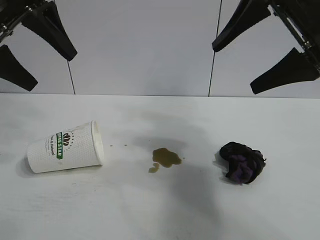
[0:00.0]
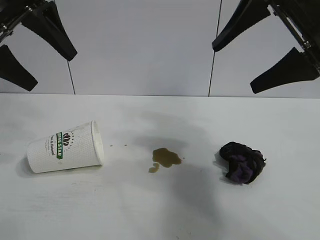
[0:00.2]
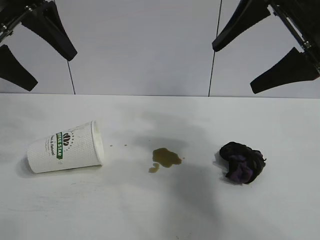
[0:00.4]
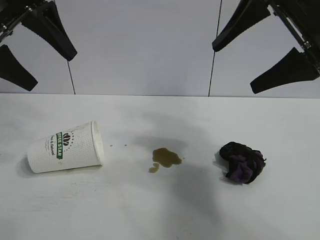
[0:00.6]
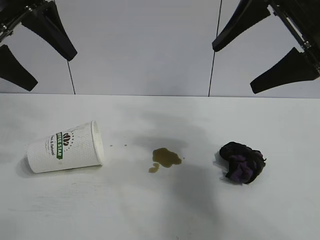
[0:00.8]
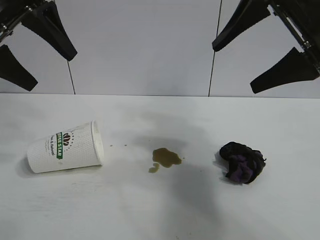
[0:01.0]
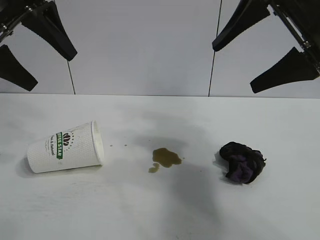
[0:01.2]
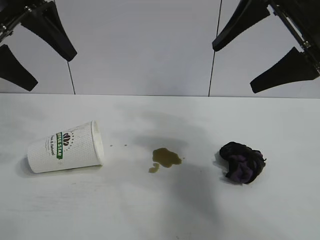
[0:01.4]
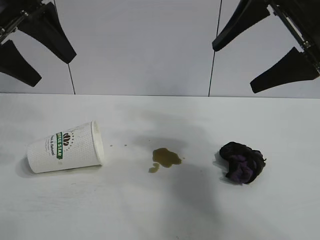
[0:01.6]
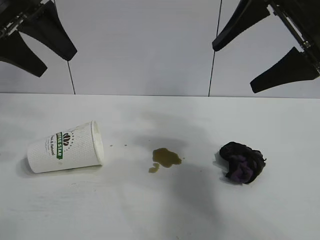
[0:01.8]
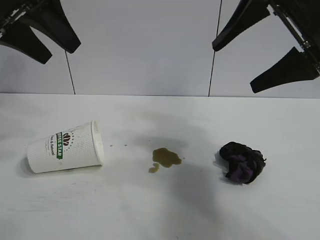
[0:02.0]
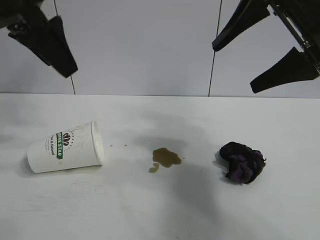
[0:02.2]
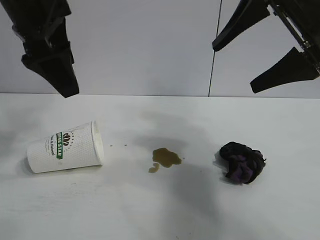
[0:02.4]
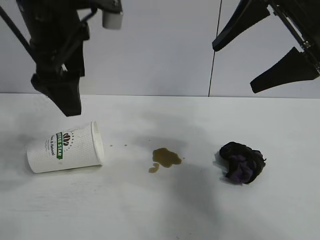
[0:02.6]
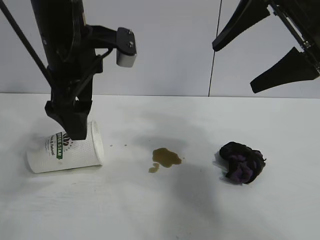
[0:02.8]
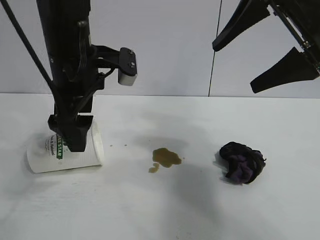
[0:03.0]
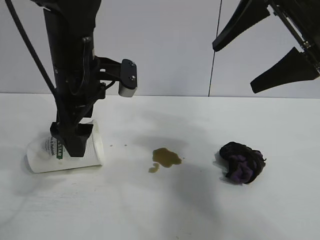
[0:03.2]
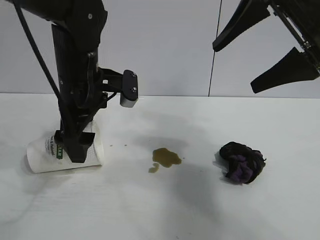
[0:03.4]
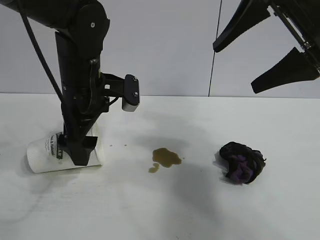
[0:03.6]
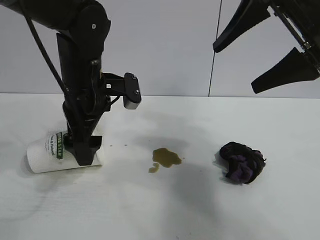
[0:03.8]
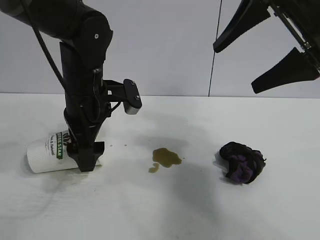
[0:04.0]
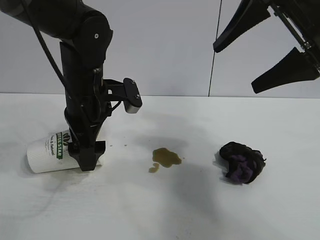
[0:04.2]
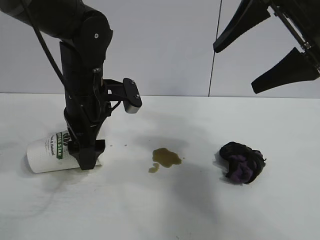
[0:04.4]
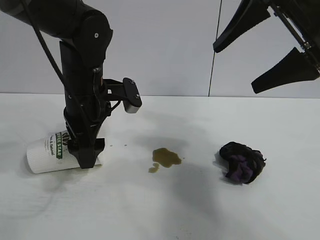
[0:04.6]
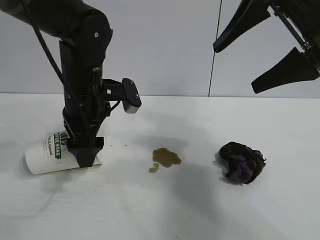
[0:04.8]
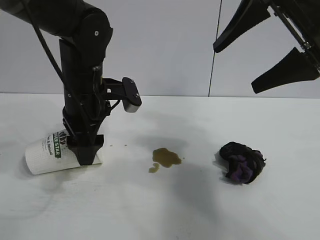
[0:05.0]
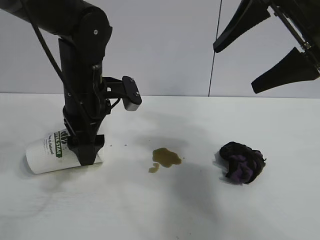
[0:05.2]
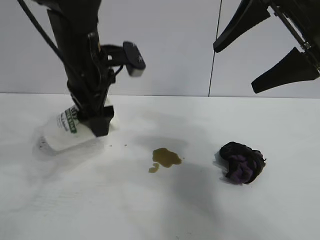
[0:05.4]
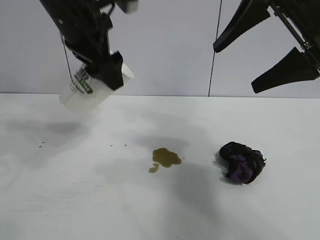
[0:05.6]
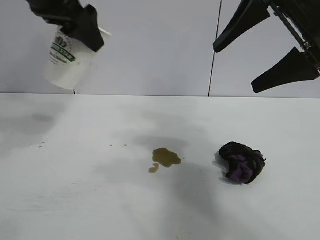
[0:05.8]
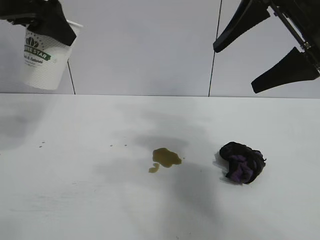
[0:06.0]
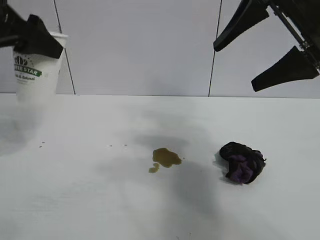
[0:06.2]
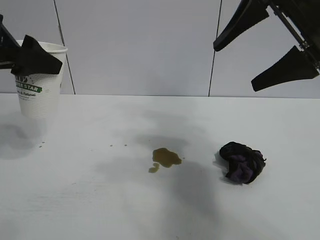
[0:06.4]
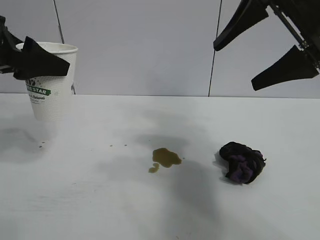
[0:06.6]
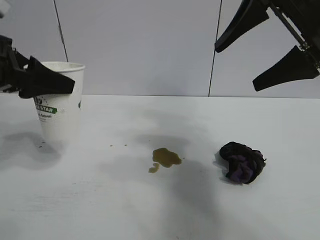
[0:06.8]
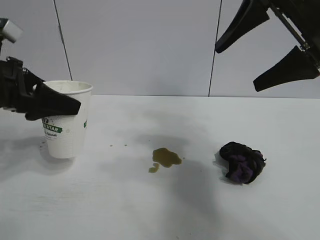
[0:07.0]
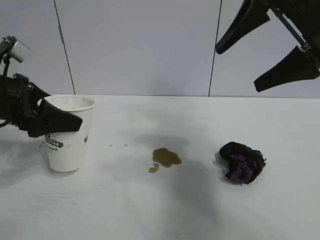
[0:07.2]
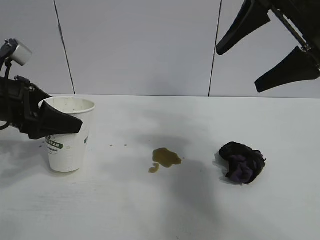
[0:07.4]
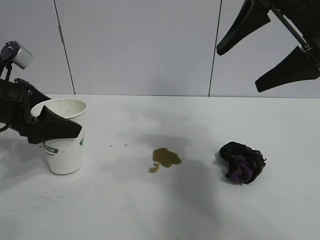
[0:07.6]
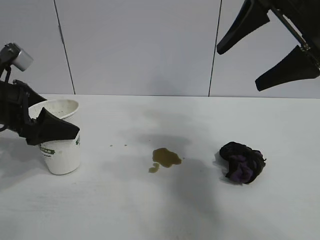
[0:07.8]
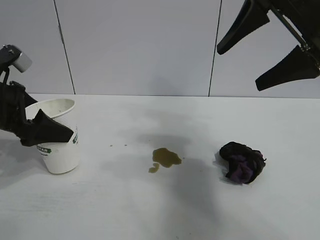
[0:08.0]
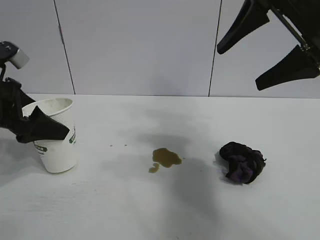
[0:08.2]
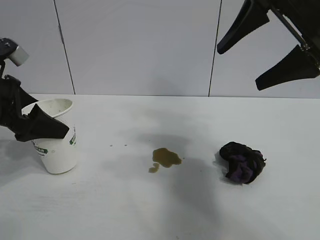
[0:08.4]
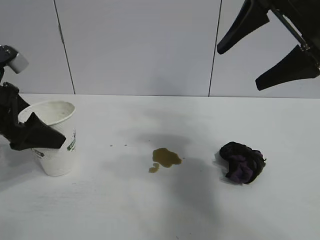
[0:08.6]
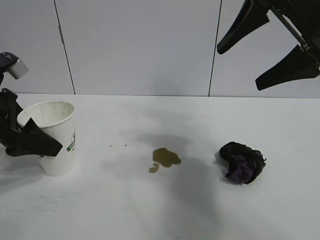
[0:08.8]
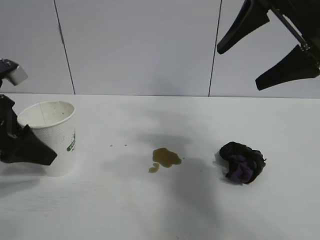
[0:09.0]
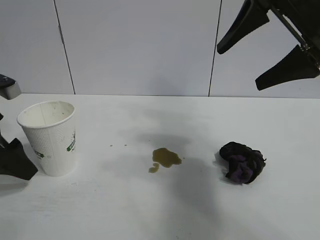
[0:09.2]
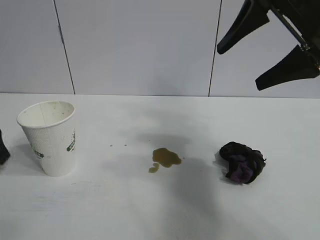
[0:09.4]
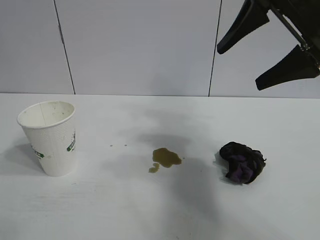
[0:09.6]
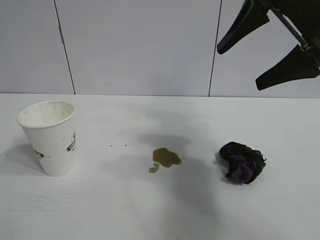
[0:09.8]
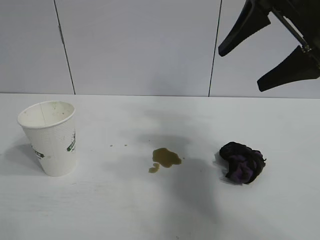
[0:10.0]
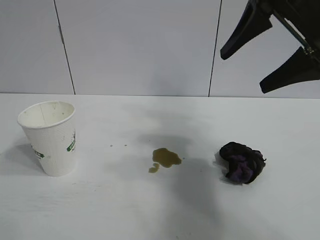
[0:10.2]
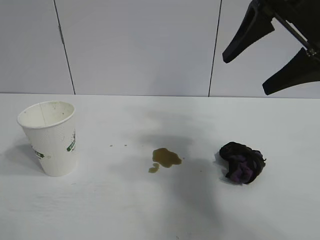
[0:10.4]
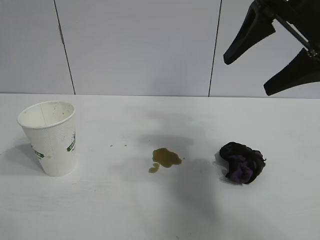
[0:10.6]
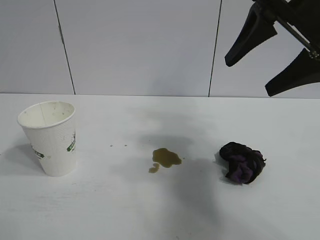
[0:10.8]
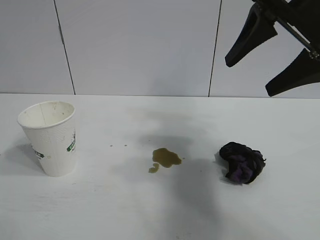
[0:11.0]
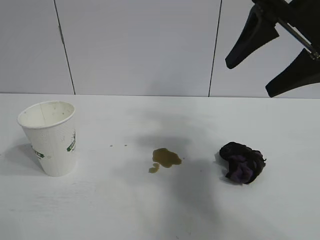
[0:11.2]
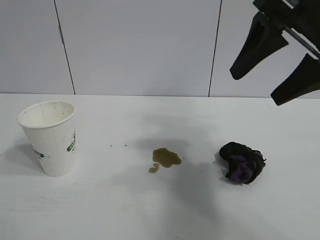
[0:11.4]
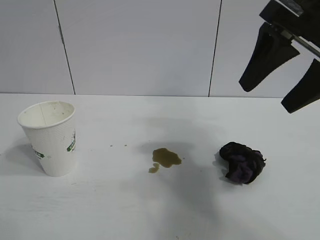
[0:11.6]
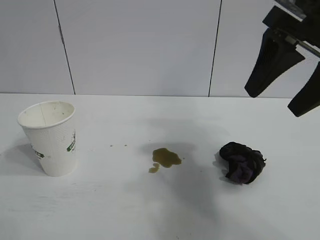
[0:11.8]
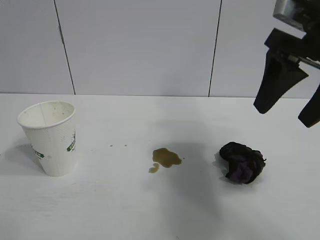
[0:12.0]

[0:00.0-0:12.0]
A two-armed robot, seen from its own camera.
Task of the whole recording: the left gripper pick up the fallen cup and place it upright, the right gripper grasp the black rag and wipe the stain on the table, the right gripper put the black rag back in its original position.
Step, 0:01.4 to 0:05.0: Grasp the paper cup with left gripper.
Step, 0:05.2 to 0:08.6: Stand the paper cup upright with left gripper.

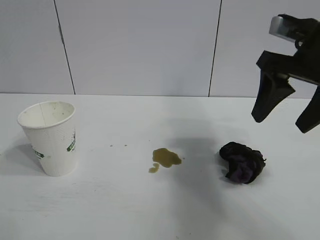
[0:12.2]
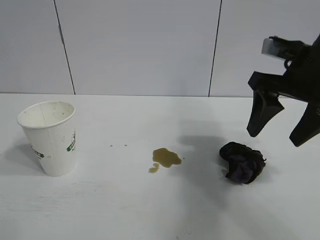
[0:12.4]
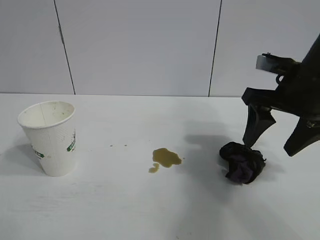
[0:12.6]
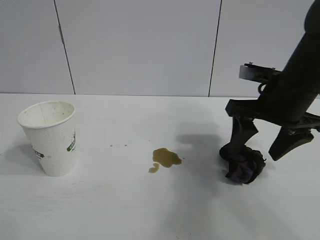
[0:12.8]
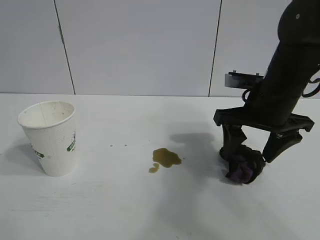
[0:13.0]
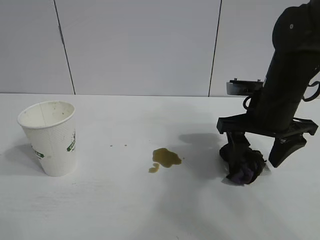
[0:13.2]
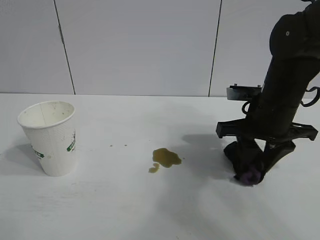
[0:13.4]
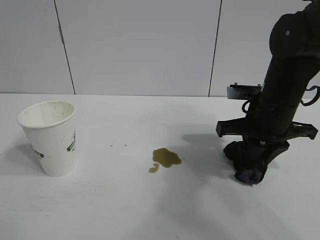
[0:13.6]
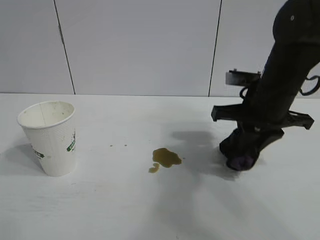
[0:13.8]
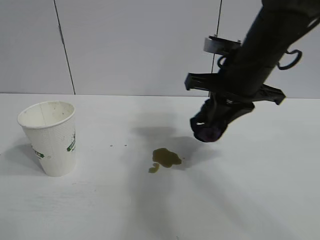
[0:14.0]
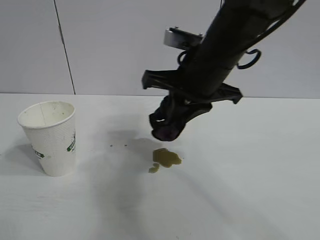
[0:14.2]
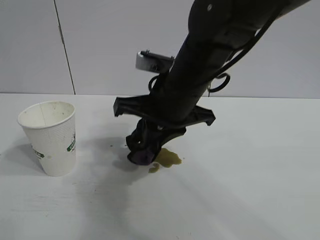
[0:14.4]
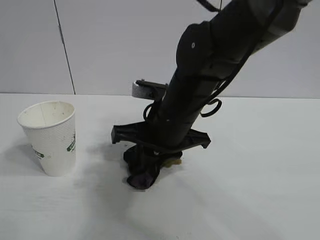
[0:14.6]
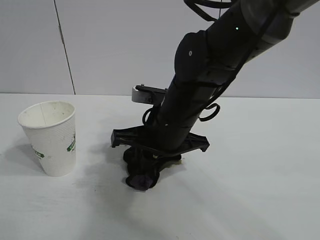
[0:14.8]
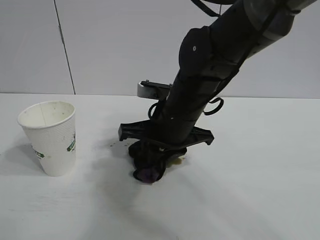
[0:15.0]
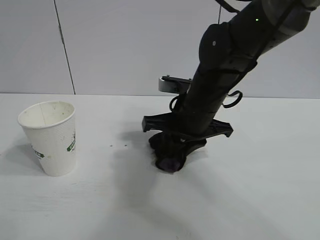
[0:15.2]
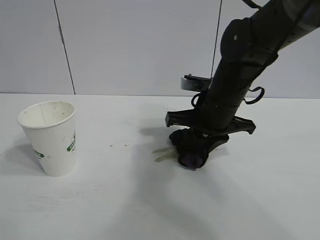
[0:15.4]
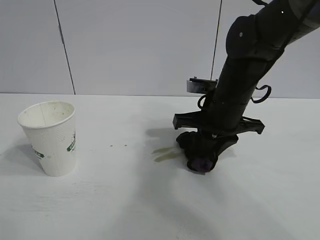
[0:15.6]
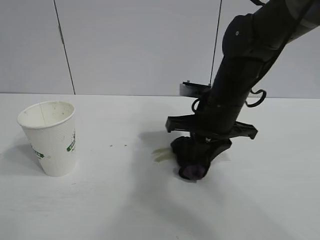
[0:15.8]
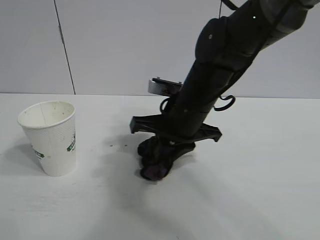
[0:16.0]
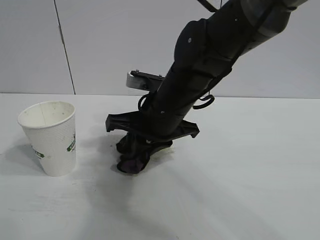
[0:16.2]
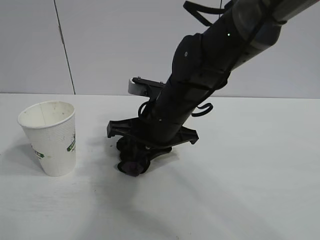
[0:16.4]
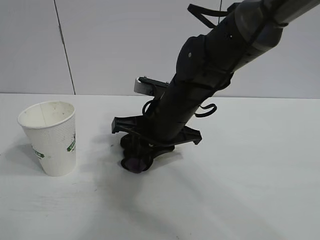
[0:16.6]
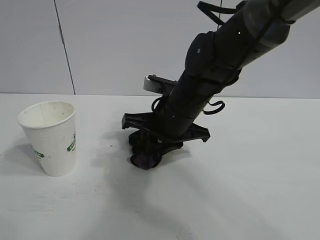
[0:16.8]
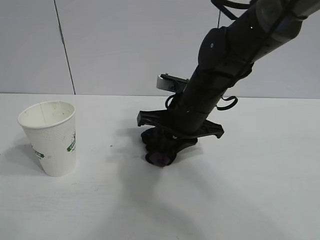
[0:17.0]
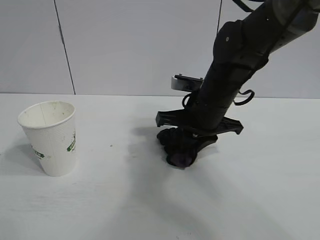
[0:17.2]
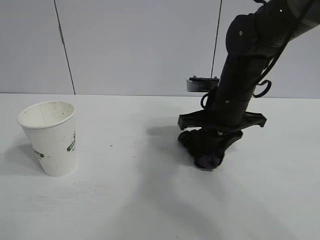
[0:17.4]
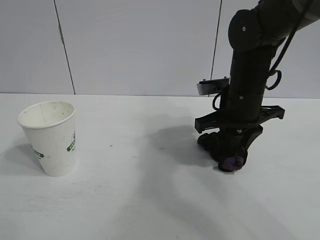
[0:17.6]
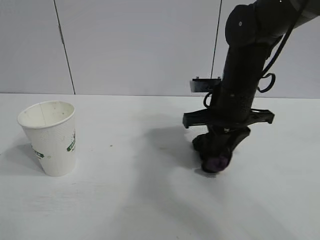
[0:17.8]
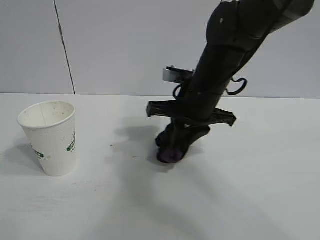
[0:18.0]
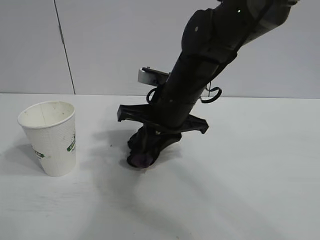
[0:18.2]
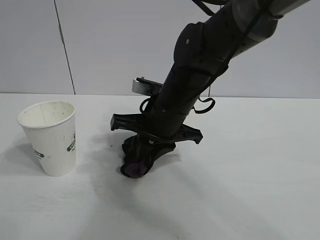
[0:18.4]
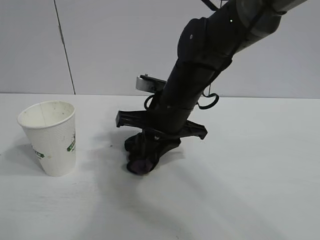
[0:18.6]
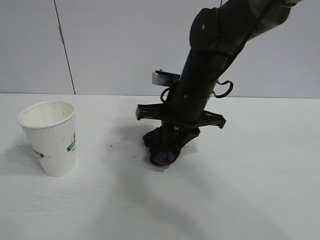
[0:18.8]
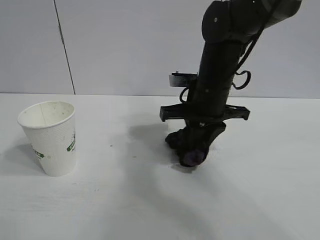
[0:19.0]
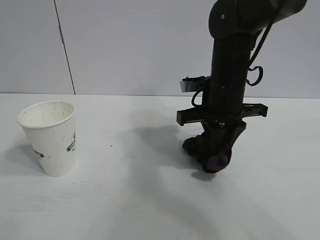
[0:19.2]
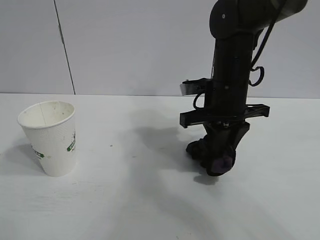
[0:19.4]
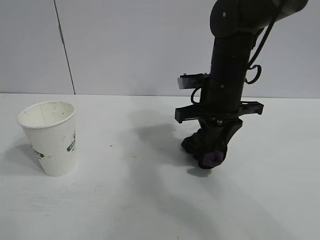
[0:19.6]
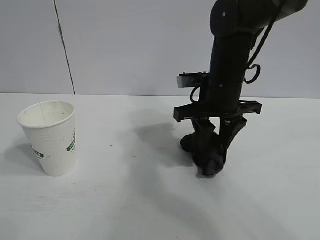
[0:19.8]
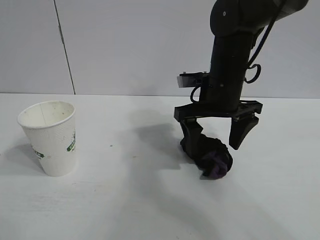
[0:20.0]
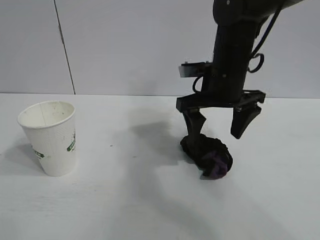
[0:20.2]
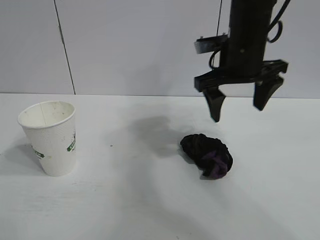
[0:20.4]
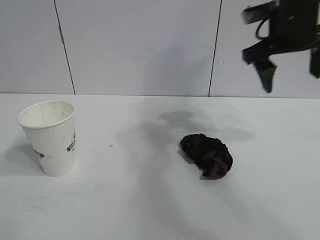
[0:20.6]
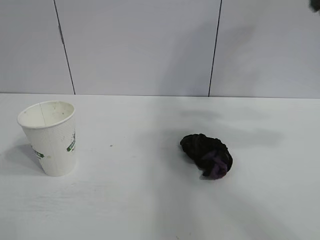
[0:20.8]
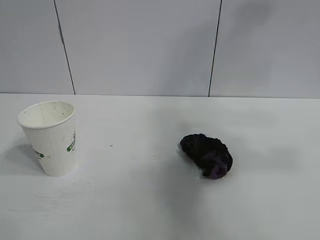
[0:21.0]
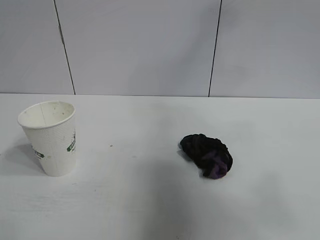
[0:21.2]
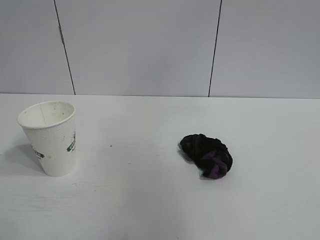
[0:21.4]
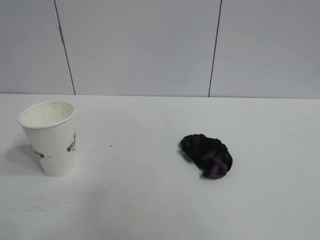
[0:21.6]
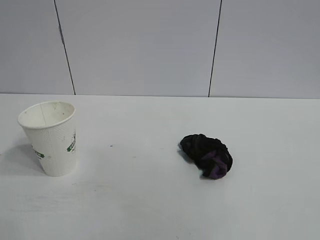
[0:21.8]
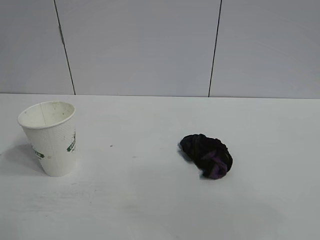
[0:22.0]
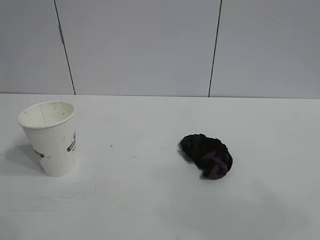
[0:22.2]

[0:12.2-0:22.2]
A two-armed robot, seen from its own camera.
Task of the whole recording: the left gripper pick up the fallen cup and place it upright, the right gripper grasp the black rag and wipe the stain on the table, the right gripper put the black rag back in its original position.
Step, 0:13.8 to 0:19.2: Wipe the stains off the table with the rag with right gripper.
Step, 0:19.4 to 0:19.8: Place the rag on the table with right gripper.

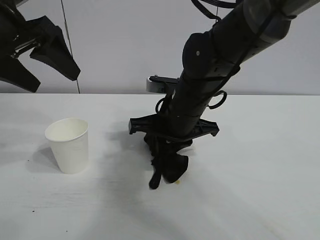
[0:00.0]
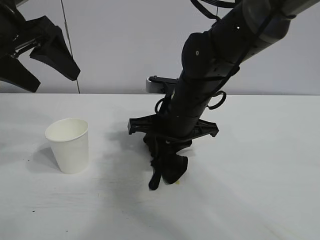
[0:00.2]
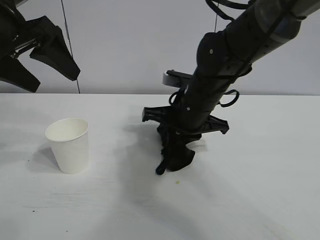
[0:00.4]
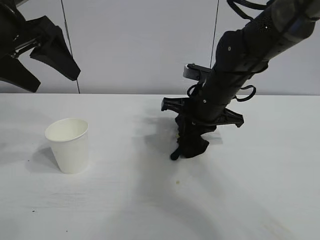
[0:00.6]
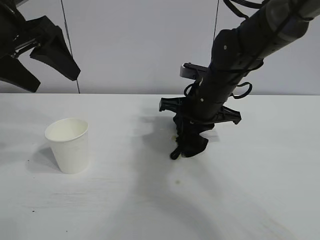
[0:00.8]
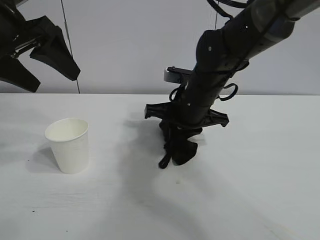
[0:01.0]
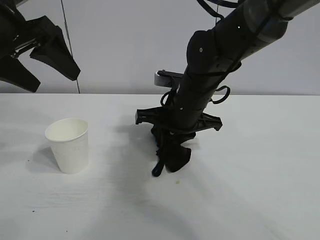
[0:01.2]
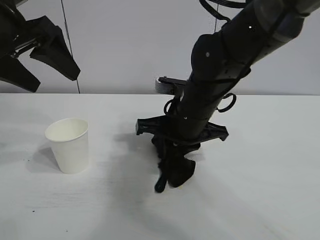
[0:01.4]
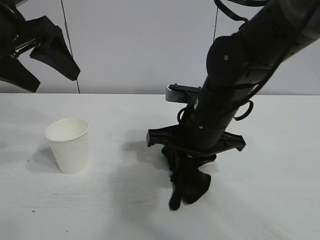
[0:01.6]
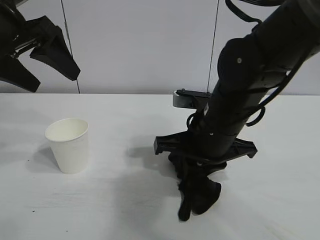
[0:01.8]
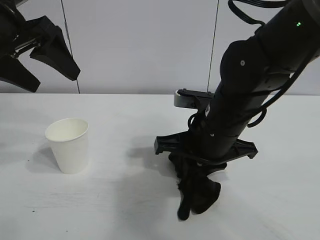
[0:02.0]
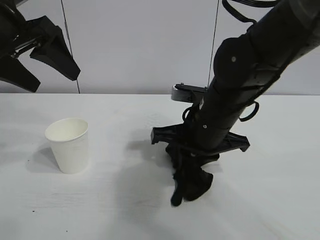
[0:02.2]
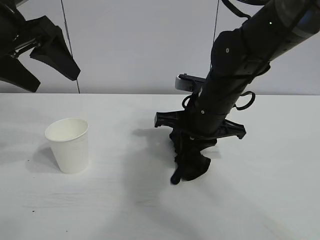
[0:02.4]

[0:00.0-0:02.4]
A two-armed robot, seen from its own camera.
Task of the whole recording: the left gripper pick up the fallen cup and place it upright, the right gripper grasp the black rag and wipe the stain on the table, the right gripper put the black rag back in its original position.
Step, 0:00.0 to 0:02.2: Wipe the stains off the table with the rag with right gripper.
